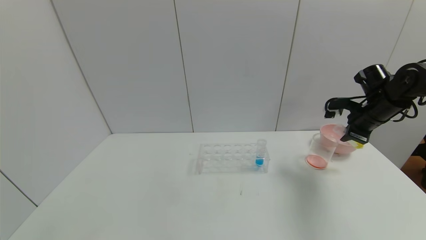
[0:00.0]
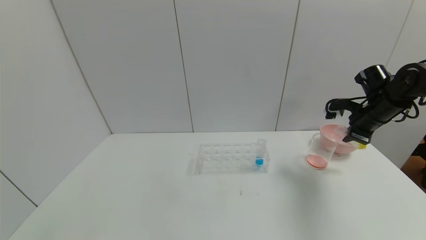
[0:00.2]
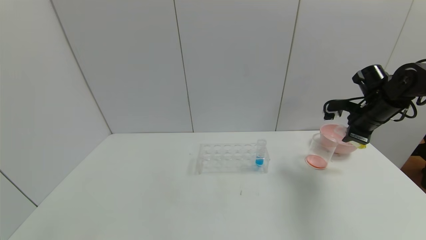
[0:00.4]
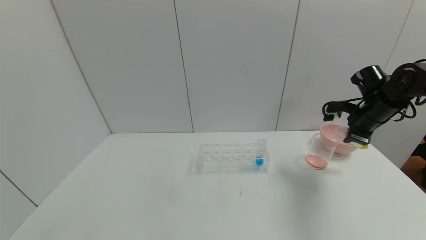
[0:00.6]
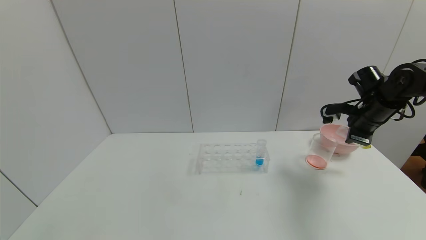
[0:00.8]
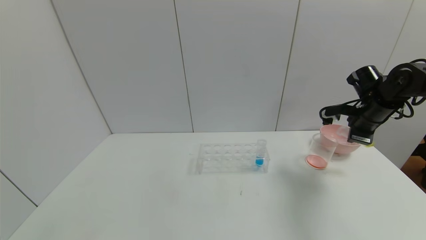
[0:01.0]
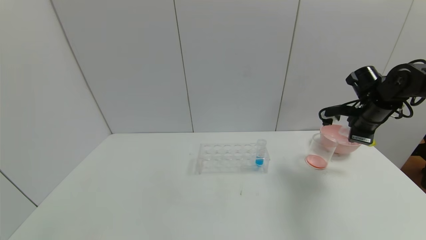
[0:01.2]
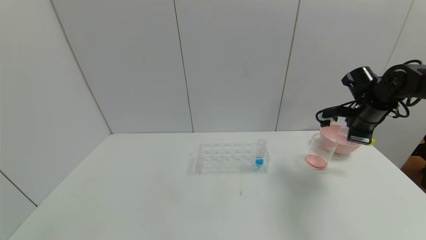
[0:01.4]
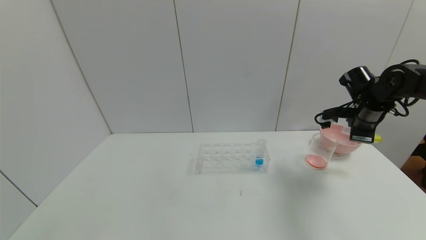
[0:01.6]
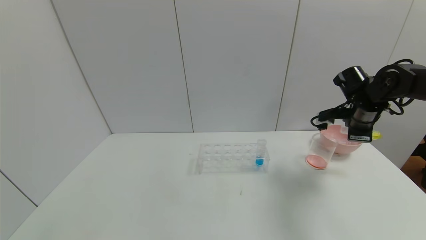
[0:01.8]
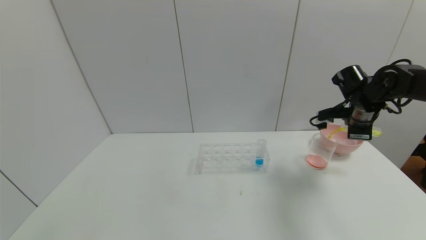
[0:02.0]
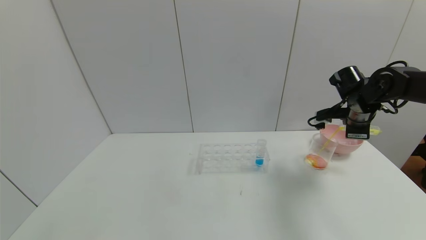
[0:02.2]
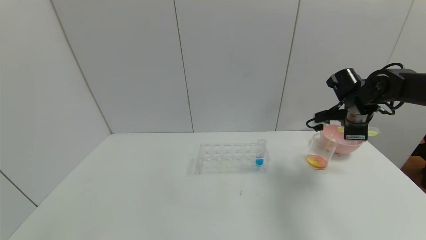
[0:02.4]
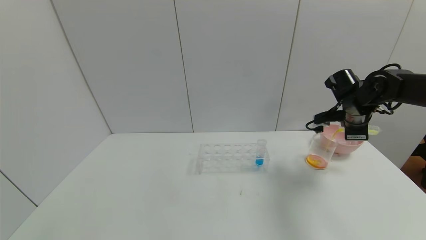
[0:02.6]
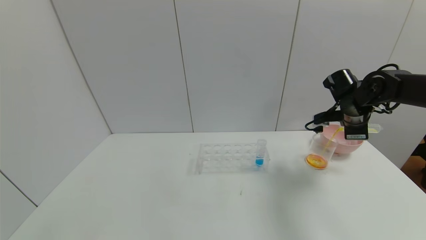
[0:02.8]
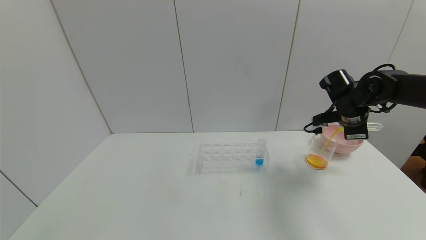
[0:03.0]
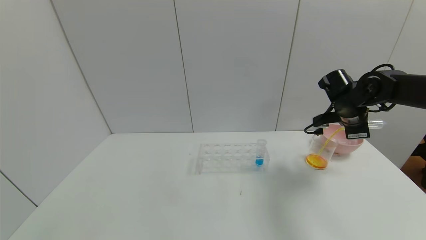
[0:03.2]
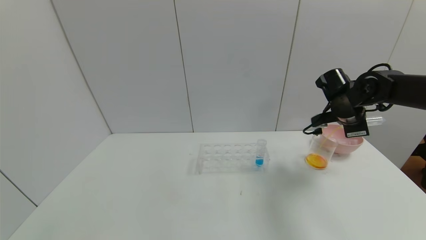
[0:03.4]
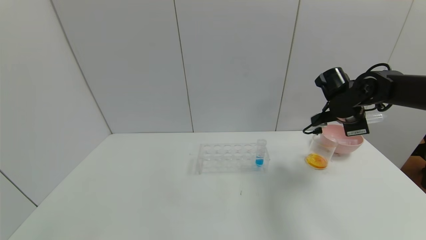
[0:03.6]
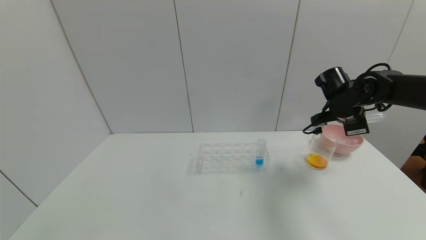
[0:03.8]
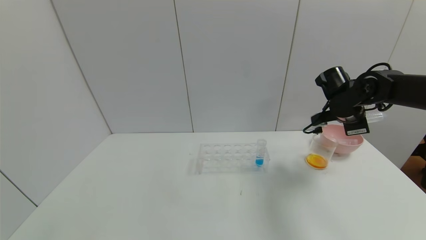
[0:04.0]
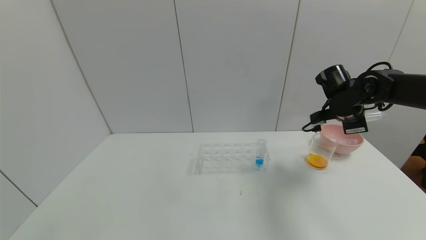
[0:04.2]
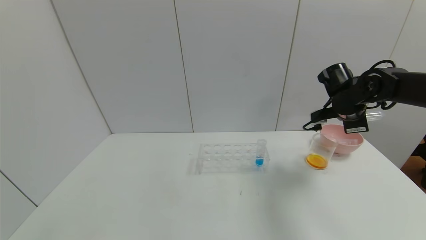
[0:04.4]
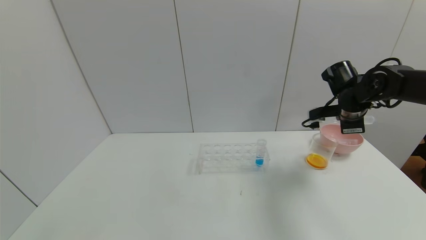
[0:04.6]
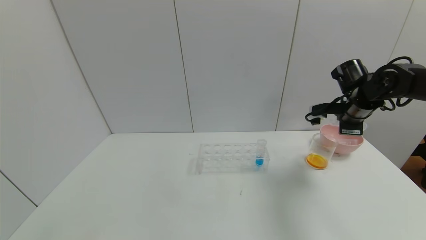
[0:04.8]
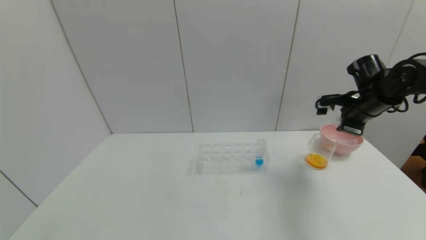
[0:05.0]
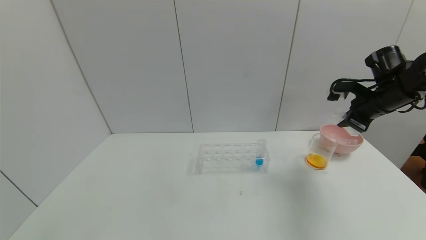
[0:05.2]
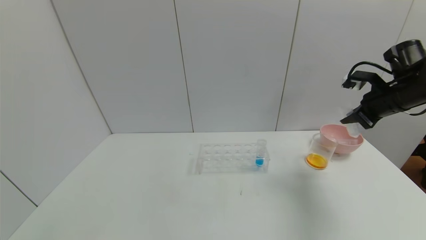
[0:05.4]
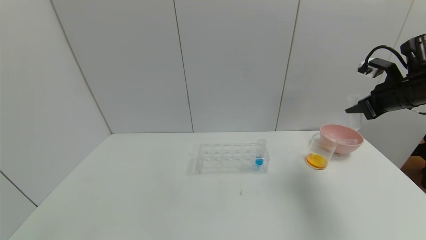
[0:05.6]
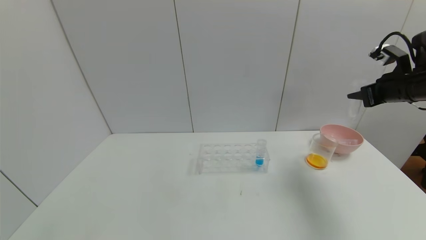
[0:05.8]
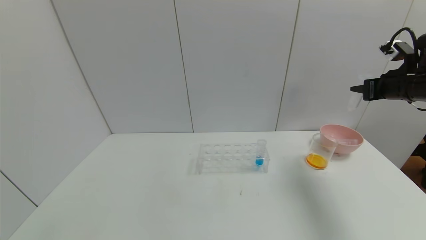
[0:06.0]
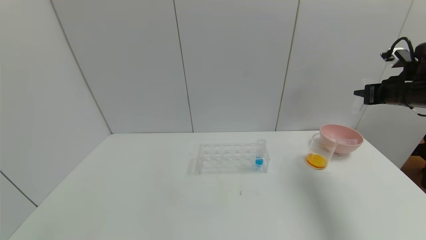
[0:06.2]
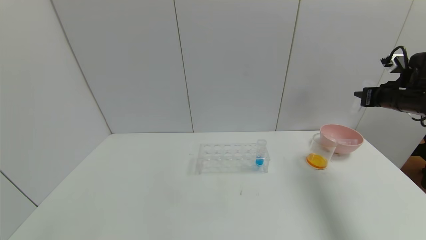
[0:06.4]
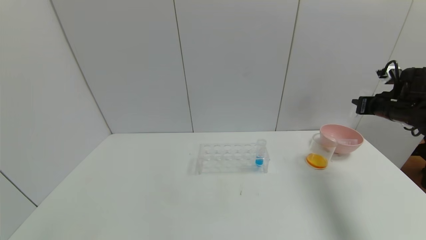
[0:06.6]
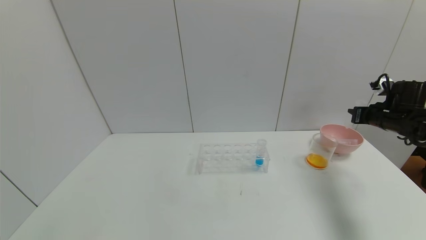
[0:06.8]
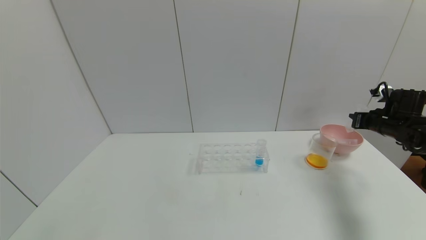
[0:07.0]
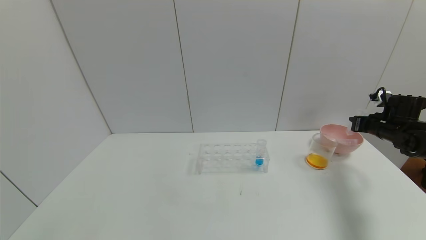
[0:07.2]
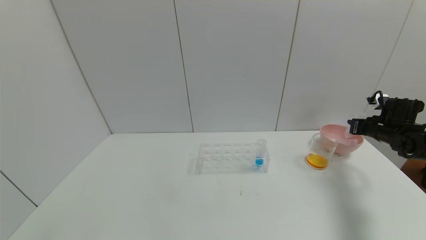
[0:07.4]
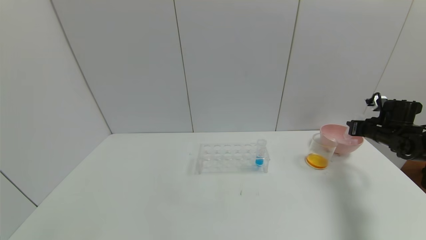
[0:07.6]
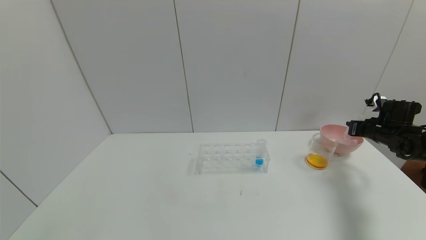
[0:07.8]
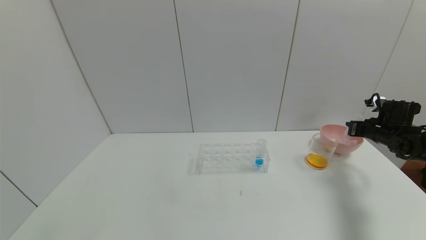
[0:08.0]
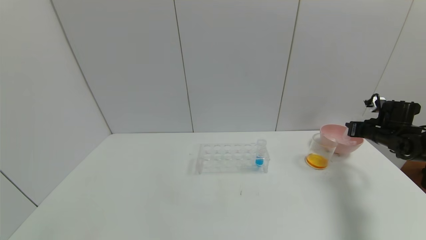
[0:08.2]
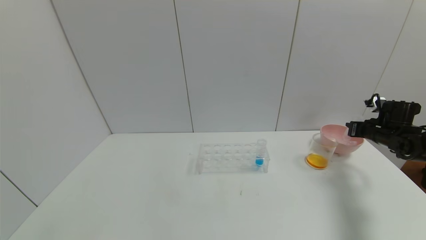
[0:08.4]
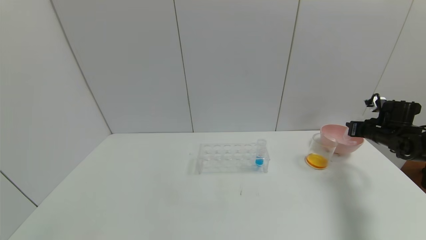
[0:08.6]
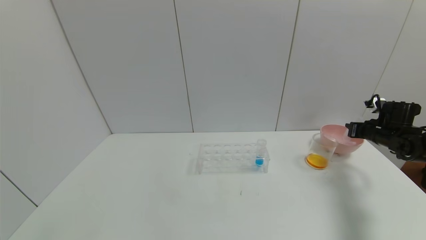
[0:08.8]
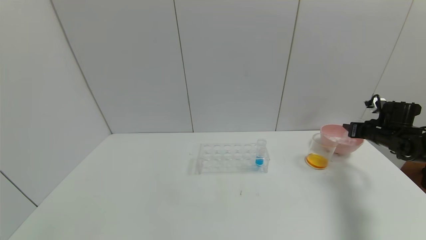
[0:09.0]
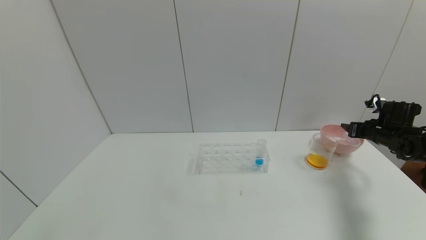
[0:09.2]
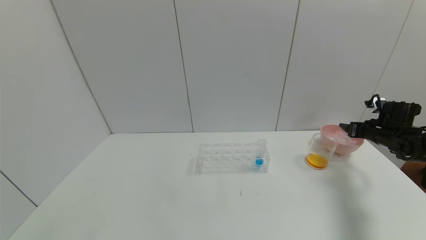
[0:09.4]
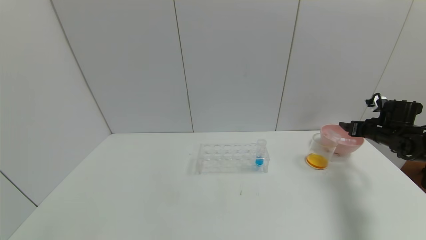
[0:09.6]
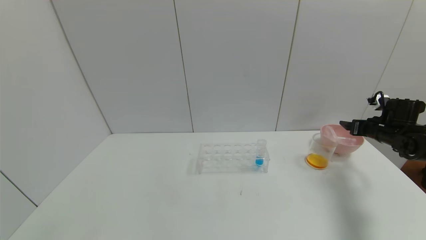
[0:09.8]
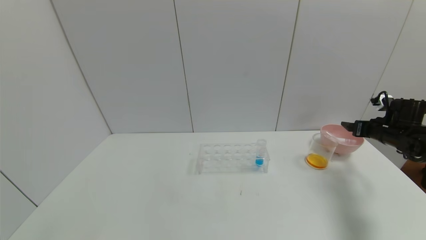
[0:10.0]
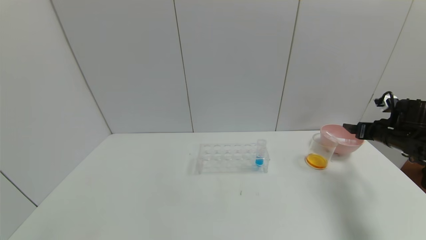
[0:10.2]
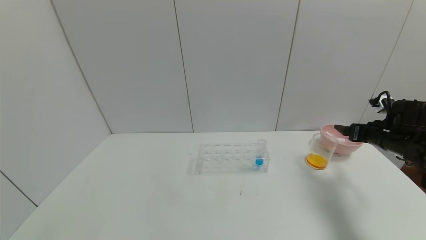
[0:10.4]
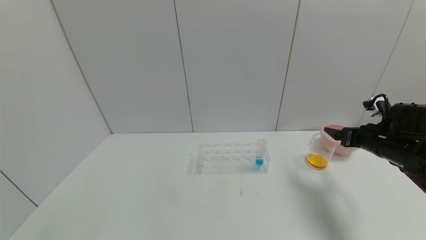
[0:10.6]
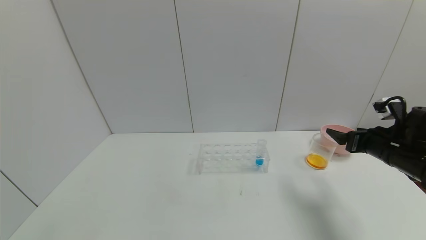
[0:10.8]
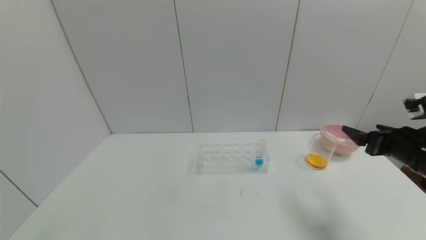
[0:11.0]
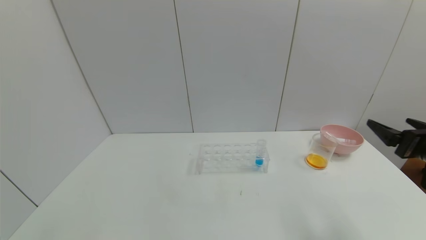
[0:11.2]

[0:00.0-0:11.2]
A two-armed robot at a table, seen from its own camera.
Task of the whole recording: pick up the test tube with yellow pigment and the test tube with red pigment by grippers and pour them into the beaker.
Step, 0:00.0 to 0:04.6: Pour the yellow reagent into the graduated cylinder with the right gripper.
Step, 0:04.8 to 0:09.0: Place the test tube into the bowl with the right gripper.
0:04.8 to 0:06.4: The right gripper goes roughly 10 cm to the right.
0:06.4 to 0:08.0: The right gripper travels downward by approximately 10 cm.
0:09.6 to 0:11.2: The right gripper is displaced backward and to the left by some 25 cm.
